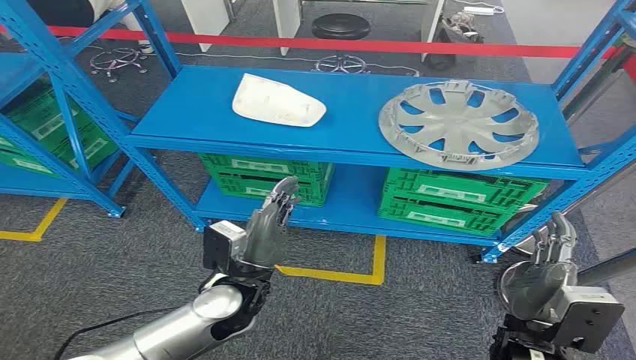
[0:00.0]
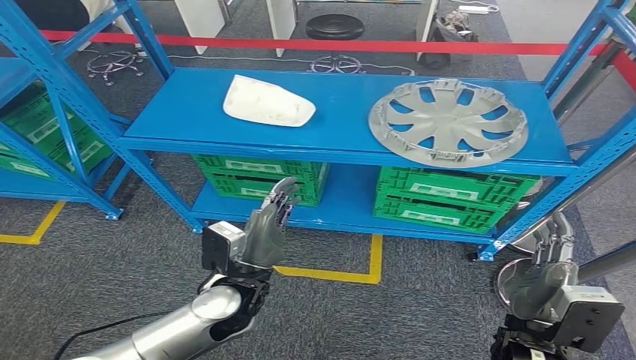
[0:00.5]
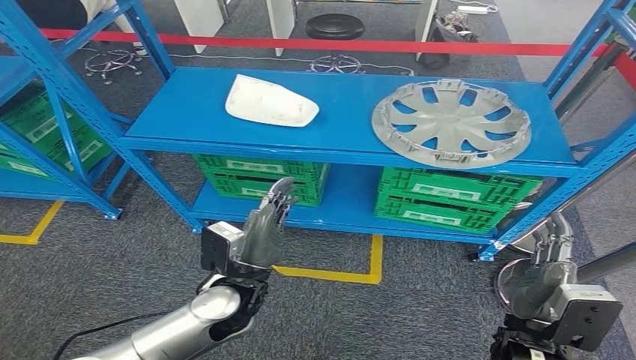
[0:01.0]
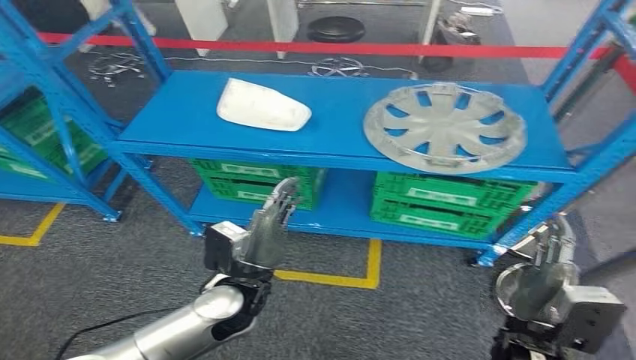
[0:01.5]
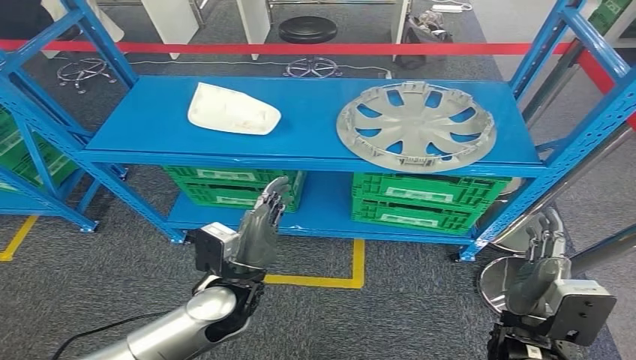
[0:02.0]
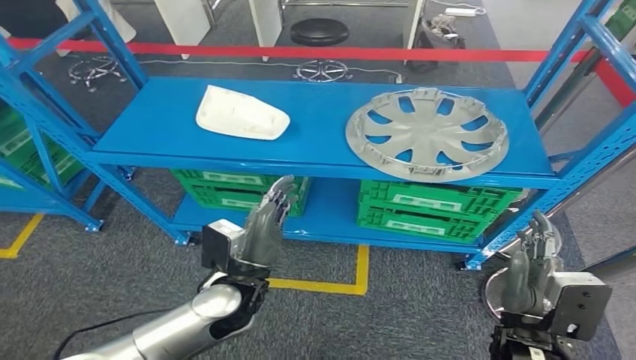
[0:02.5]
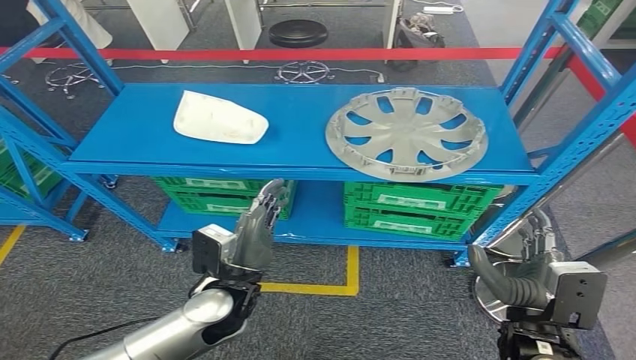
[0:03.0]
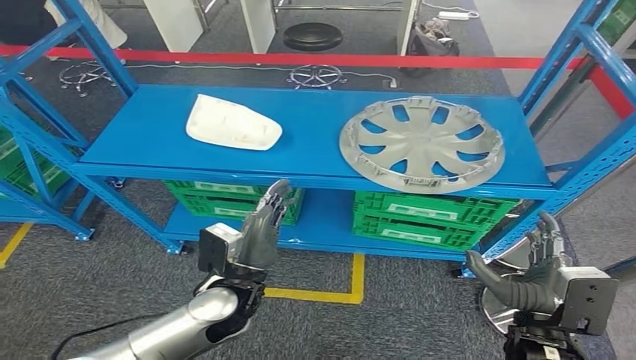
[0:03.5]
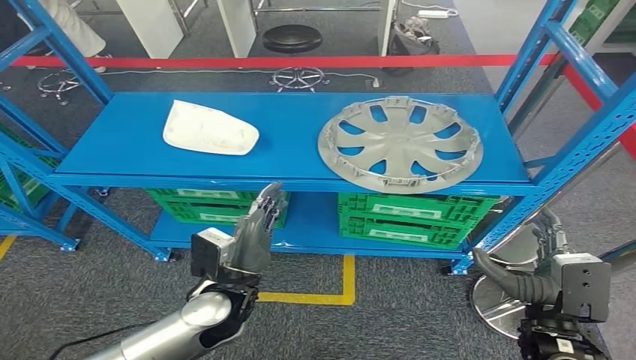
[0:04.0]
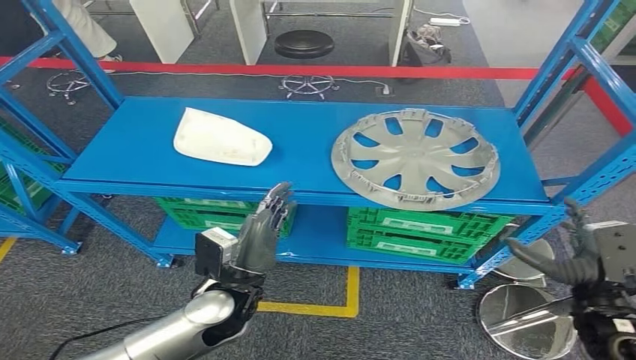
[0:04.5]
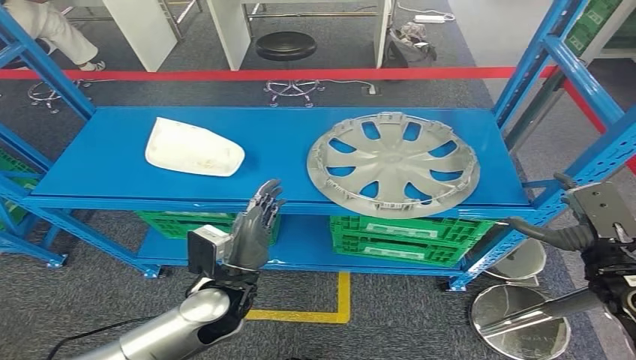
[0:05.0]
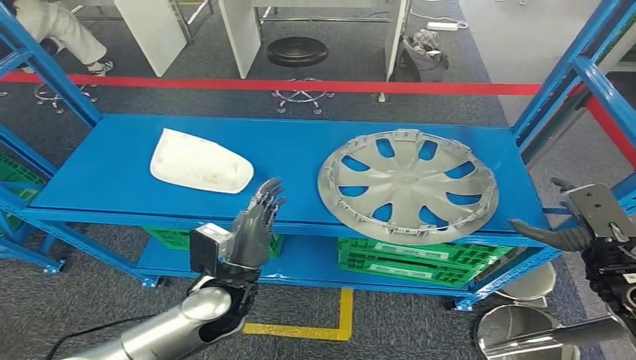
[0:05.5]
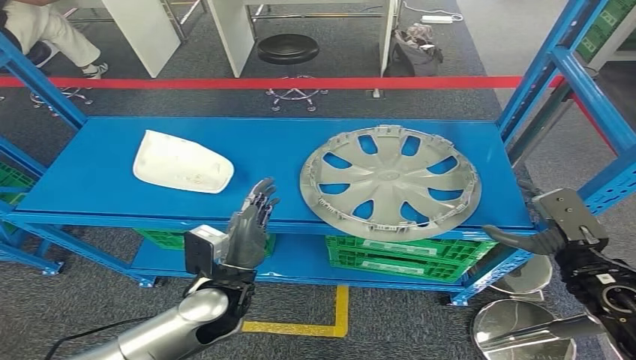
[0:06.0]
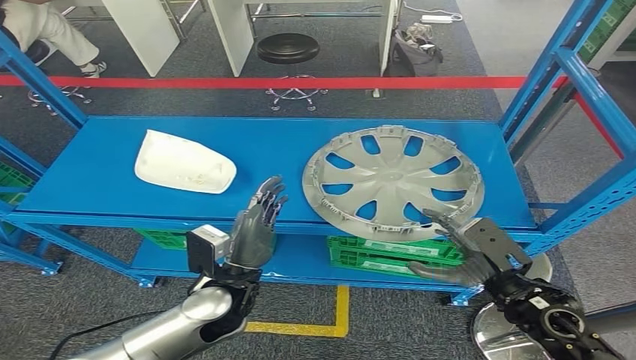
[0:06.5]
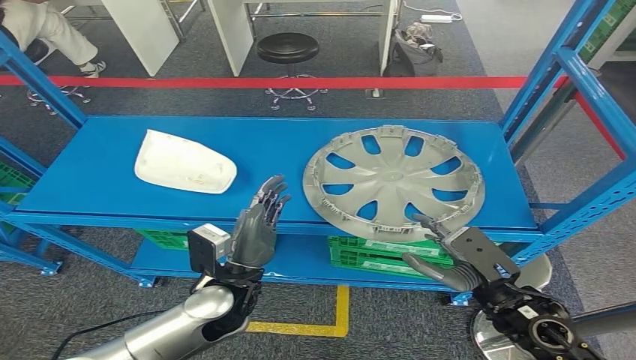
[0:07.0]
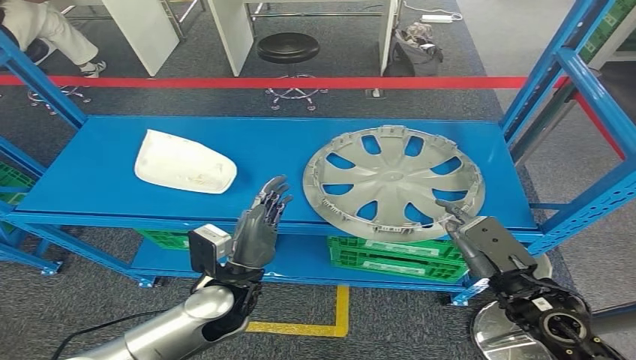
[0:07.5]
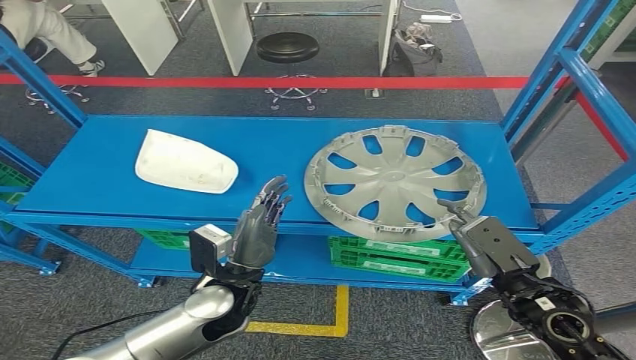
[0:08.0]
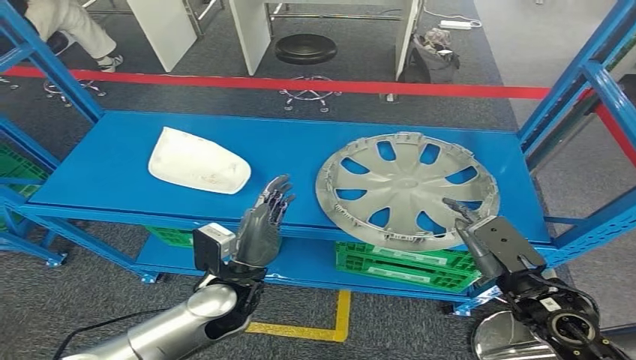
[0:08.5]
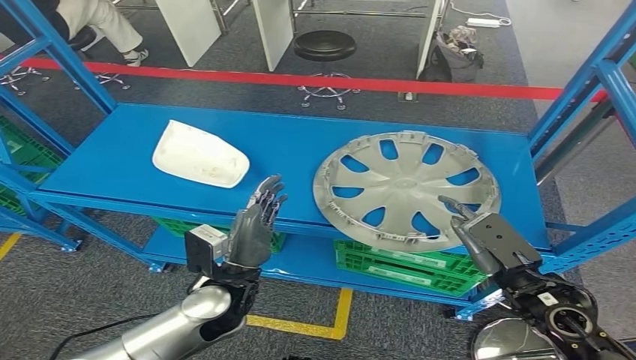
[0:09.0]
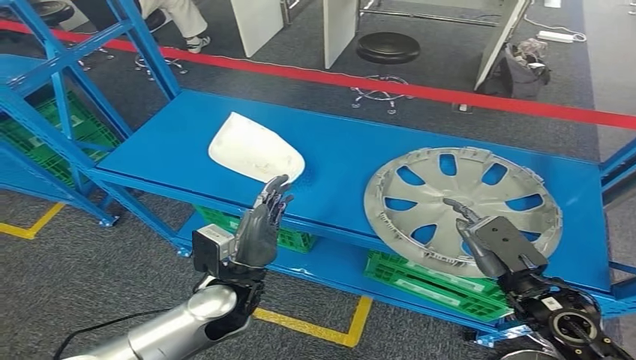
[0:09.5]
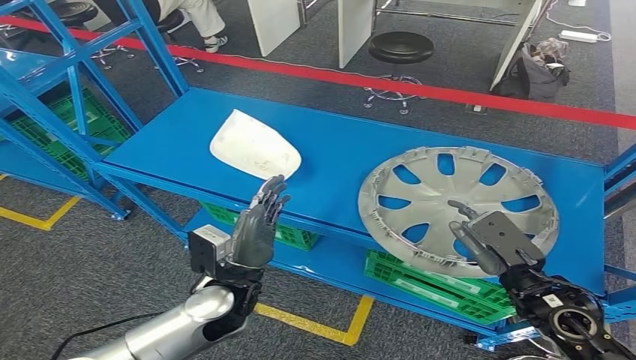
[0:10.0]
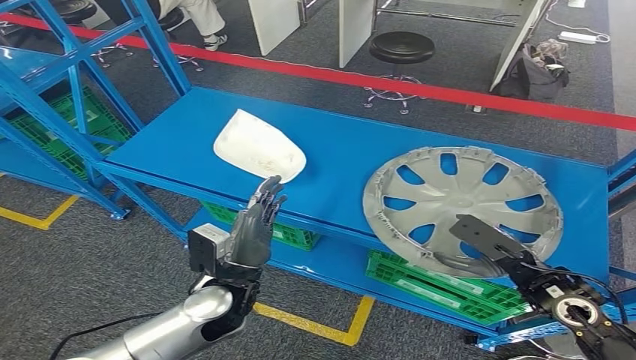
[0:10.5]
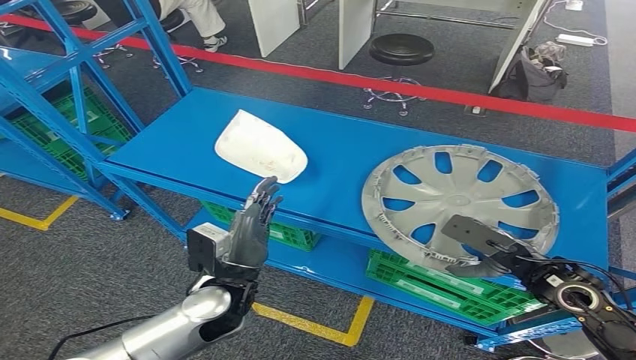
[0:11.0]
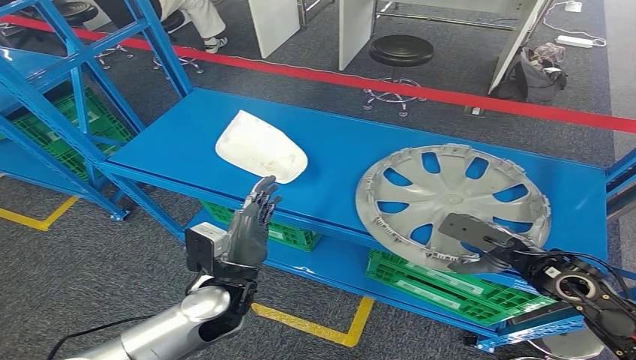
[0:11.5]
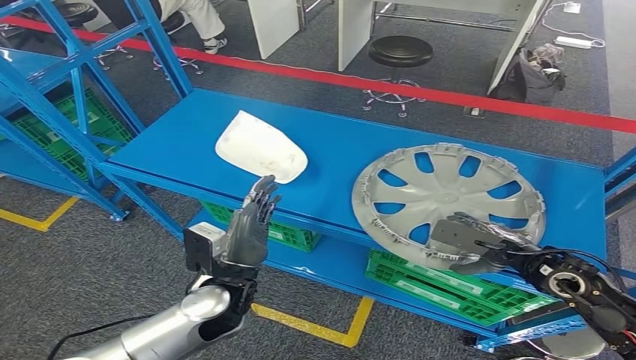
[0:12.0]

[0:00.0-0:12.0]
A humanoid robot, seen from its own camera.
0:06.0 to 0:08.0: The right hand goes about 10 cm to the left and backward.
0:10.0 to 0:12.0: The right hand moves forward, about 5 cm.

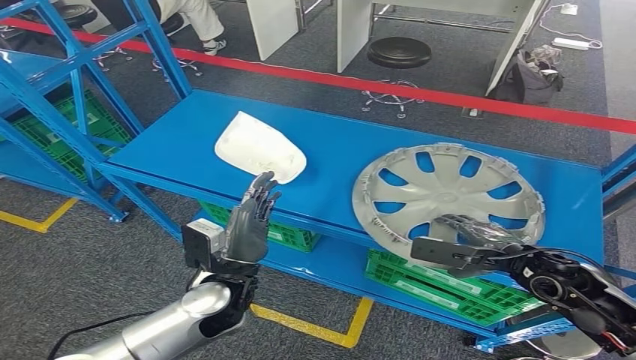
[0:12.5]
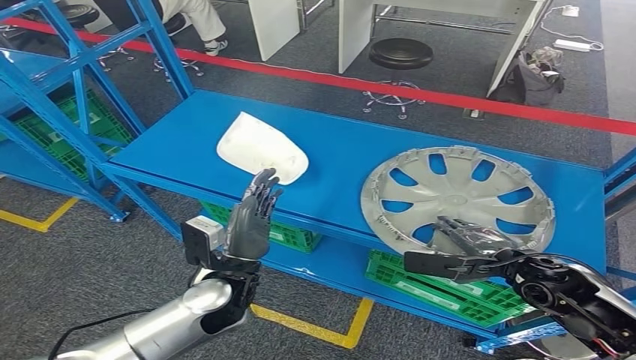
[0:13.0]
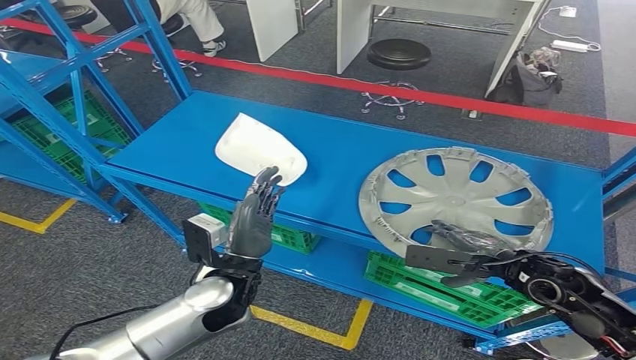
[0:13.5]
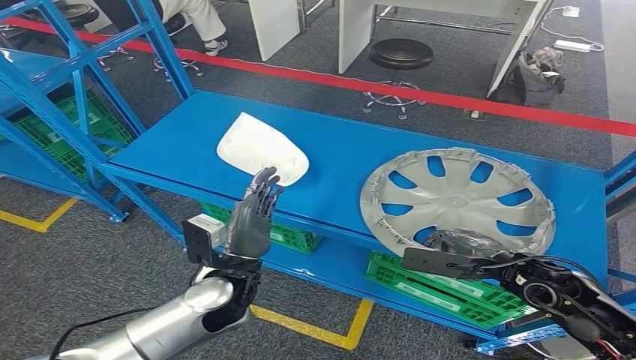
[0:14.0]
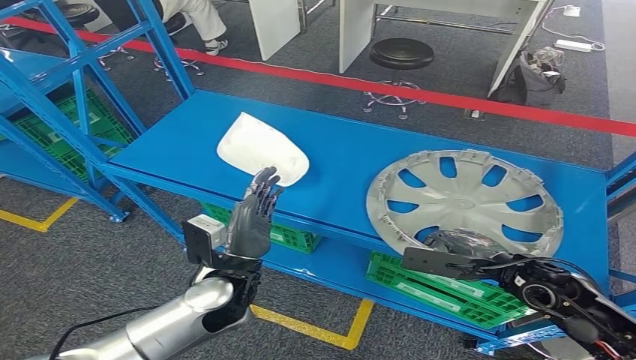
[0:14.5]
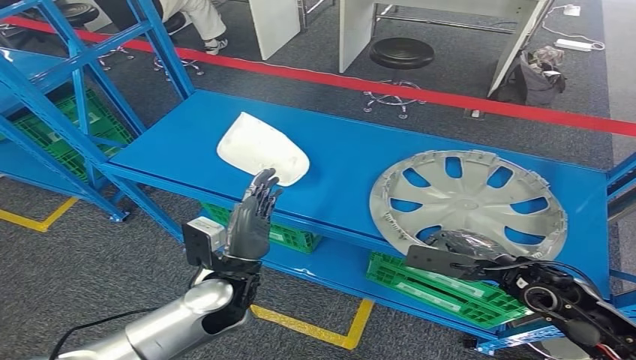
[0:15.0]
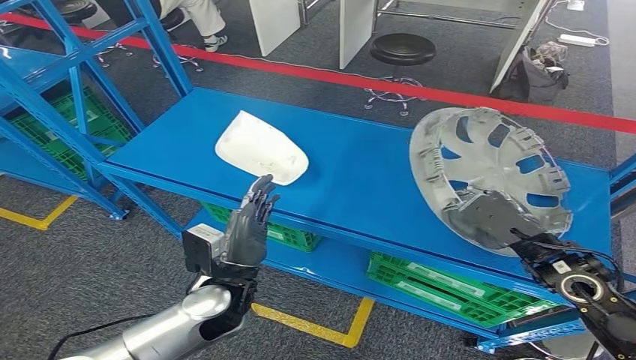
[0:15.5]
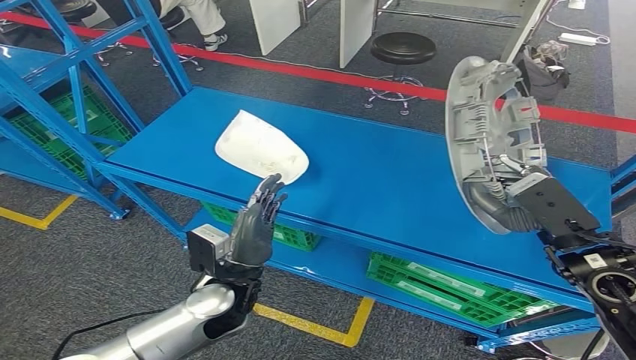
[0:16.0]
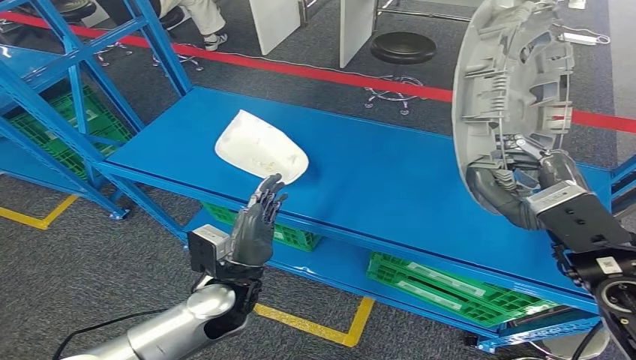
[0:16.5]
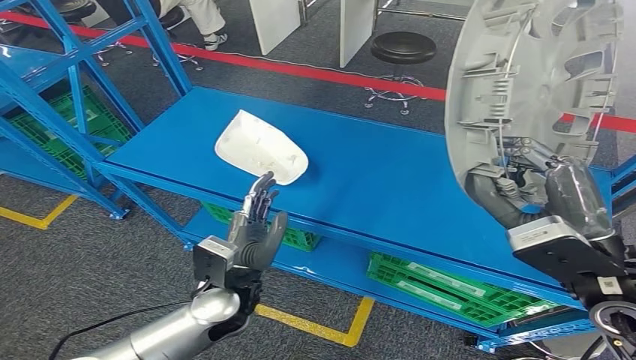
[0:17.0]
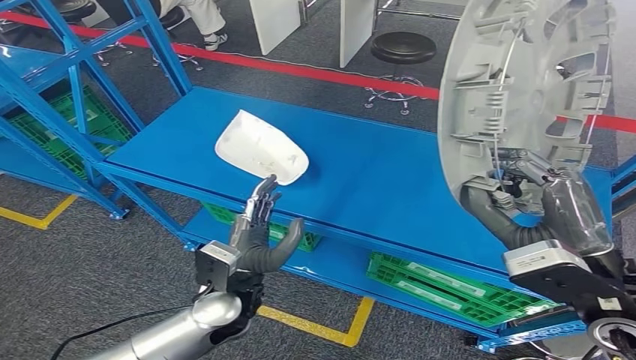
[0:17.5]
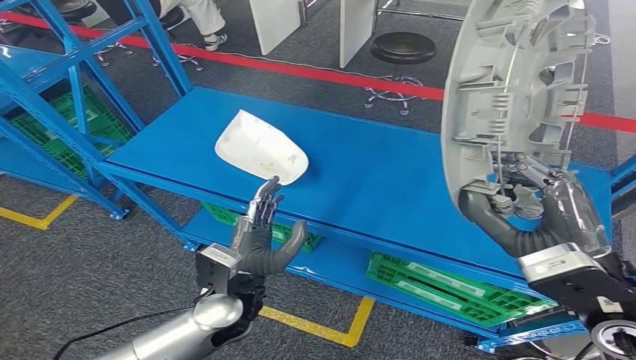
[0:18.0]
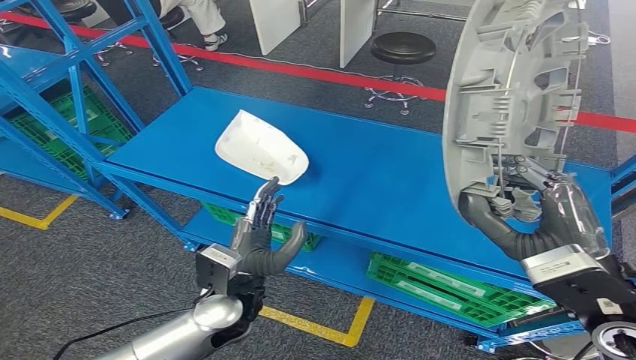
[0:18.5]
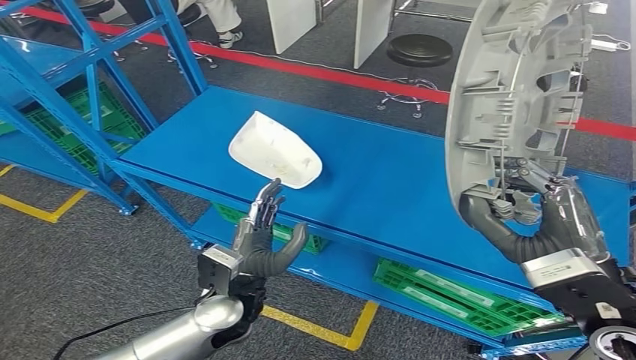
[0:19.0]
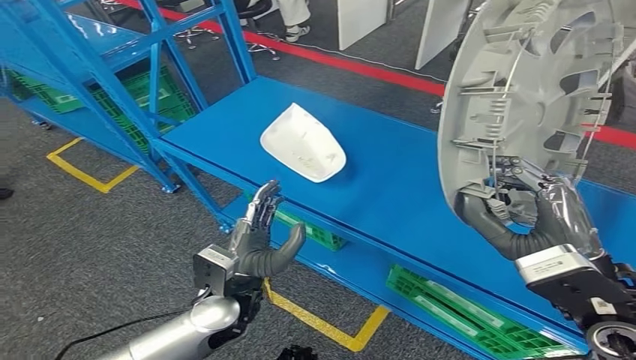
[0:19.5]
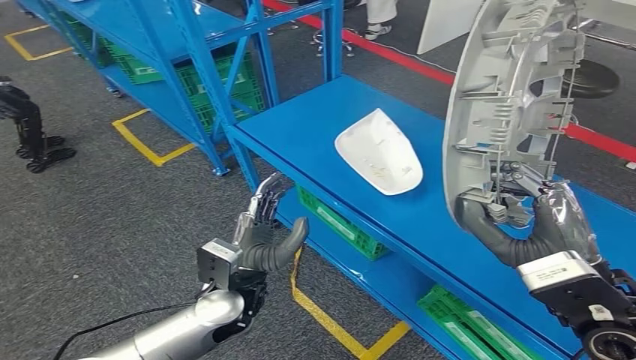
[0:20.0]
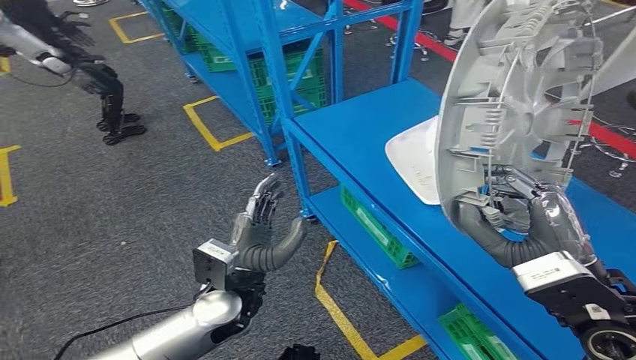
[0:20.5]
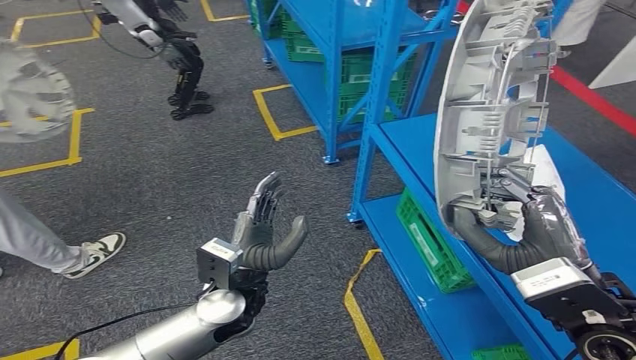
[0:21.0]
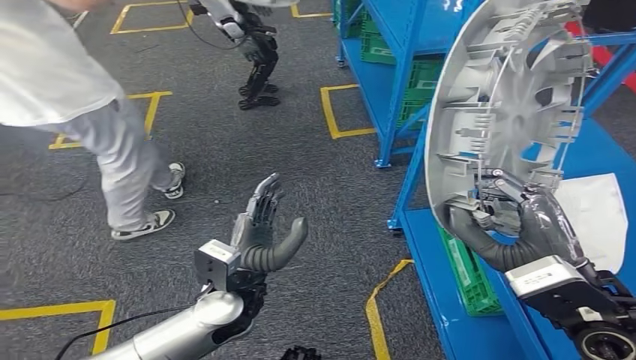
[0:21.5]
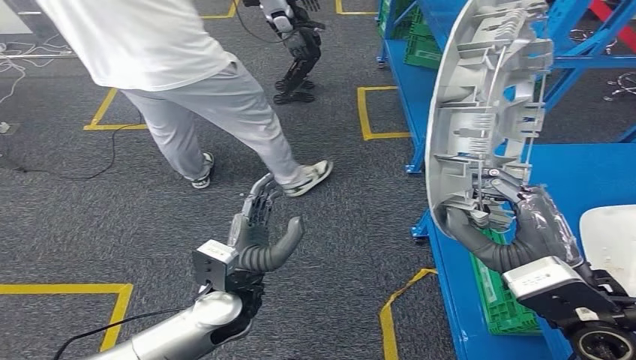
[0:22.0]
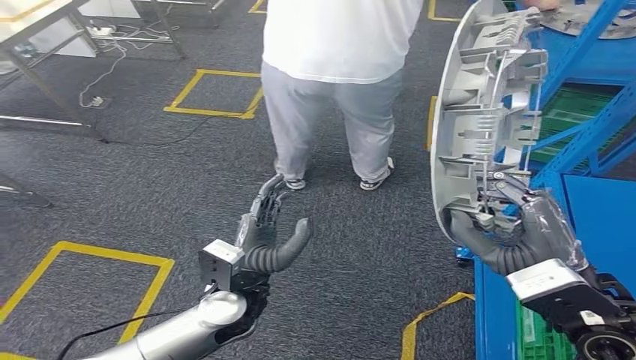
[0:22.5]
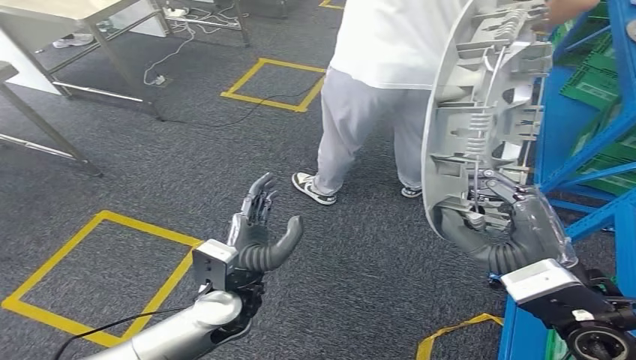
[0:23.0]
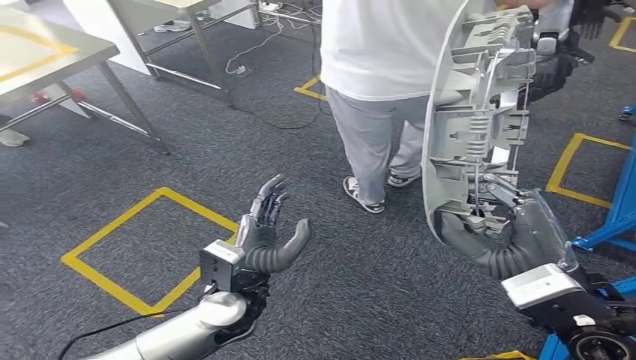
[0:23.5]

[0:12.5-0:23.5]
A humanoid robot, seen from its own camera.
Step, 0:12.5 to 0:15.0: Pick up the small parts from the shelf.
0:12.5 to 0:14.5: The hands stay close to where they were, moving slightly.
0:16.0 to 0:18.0: The right hand shifts roughly 5 cm backward.
